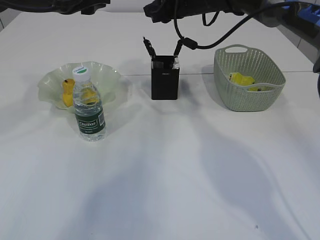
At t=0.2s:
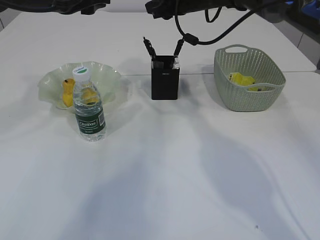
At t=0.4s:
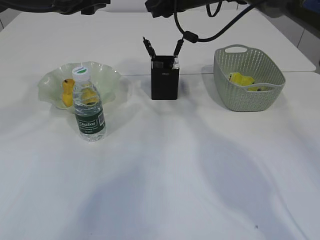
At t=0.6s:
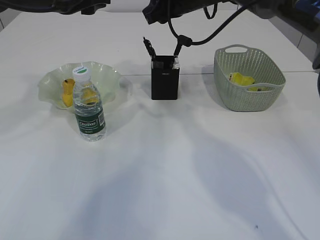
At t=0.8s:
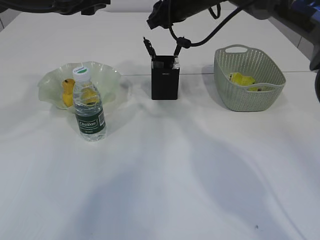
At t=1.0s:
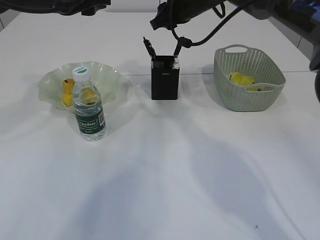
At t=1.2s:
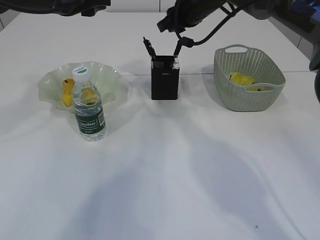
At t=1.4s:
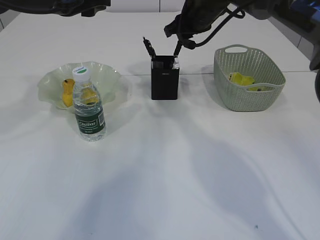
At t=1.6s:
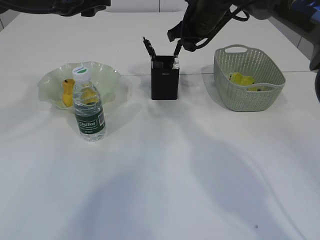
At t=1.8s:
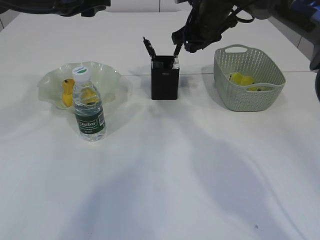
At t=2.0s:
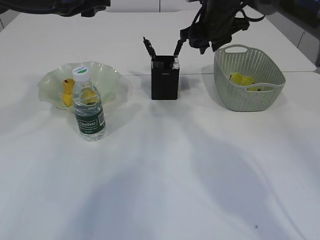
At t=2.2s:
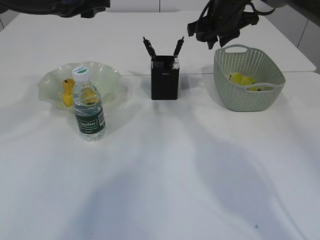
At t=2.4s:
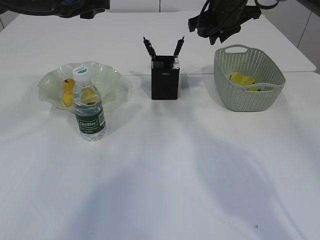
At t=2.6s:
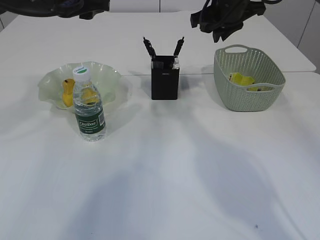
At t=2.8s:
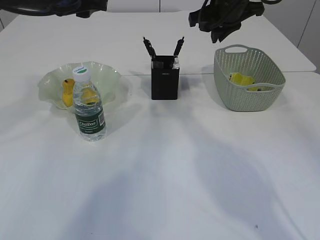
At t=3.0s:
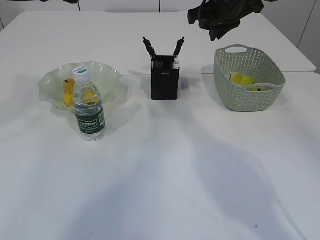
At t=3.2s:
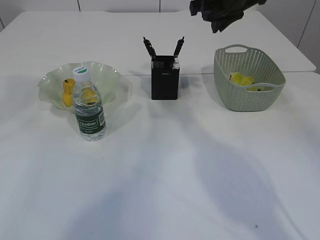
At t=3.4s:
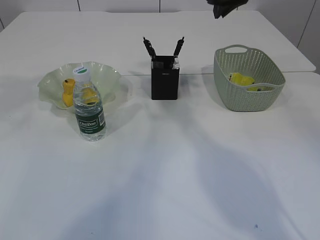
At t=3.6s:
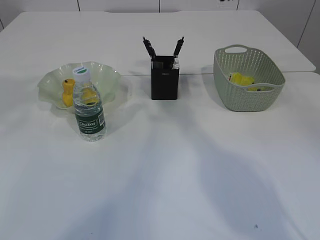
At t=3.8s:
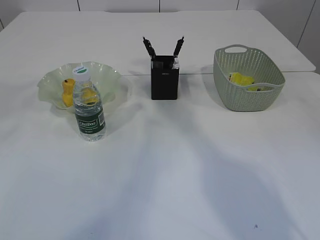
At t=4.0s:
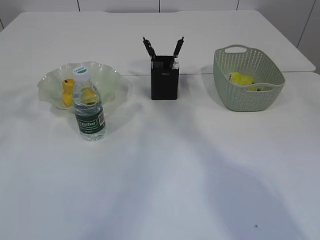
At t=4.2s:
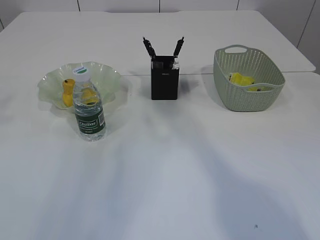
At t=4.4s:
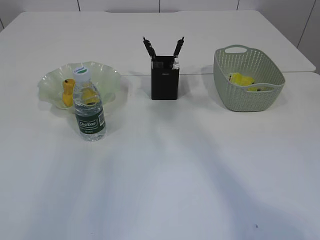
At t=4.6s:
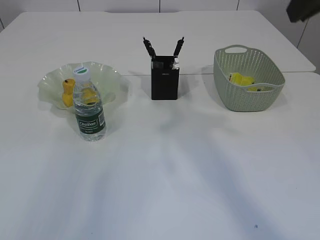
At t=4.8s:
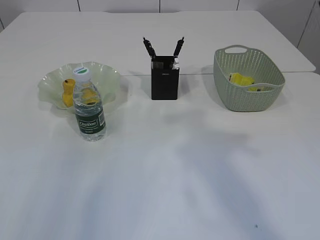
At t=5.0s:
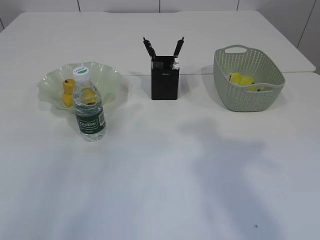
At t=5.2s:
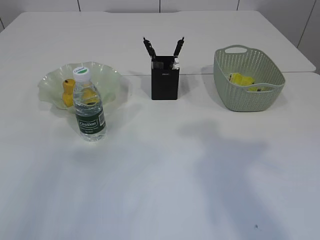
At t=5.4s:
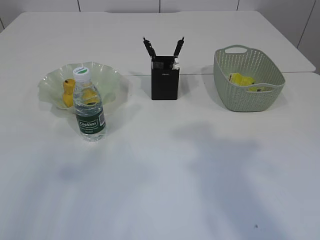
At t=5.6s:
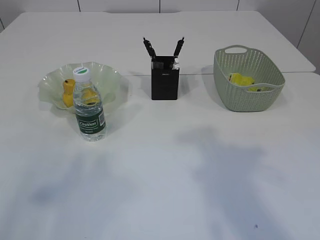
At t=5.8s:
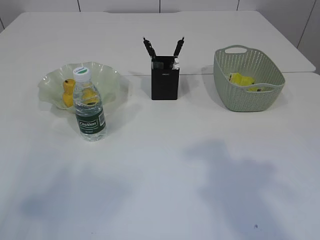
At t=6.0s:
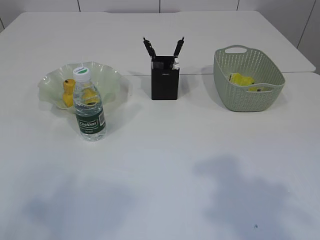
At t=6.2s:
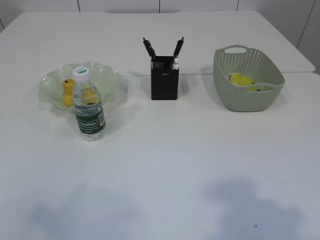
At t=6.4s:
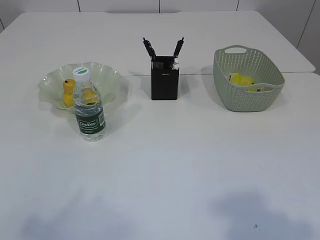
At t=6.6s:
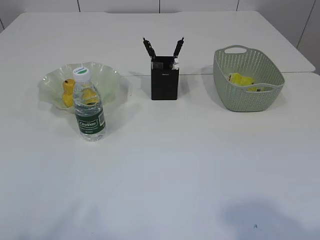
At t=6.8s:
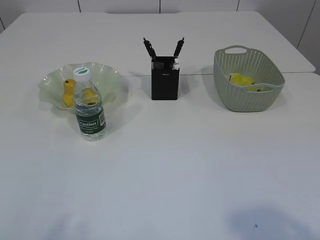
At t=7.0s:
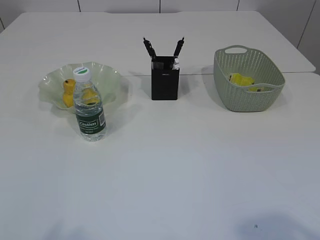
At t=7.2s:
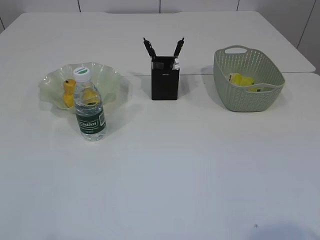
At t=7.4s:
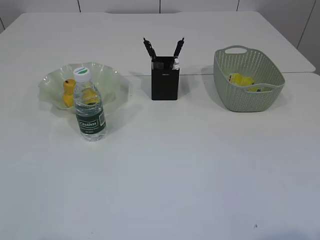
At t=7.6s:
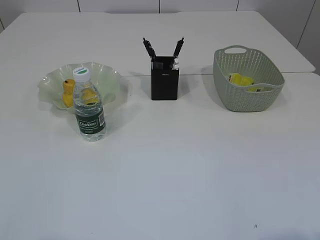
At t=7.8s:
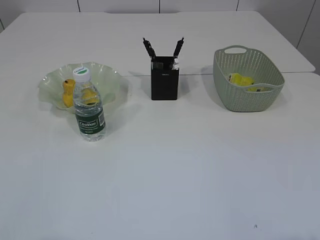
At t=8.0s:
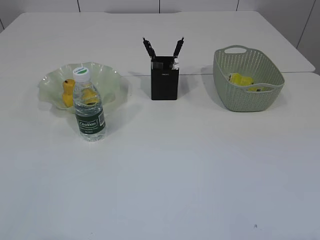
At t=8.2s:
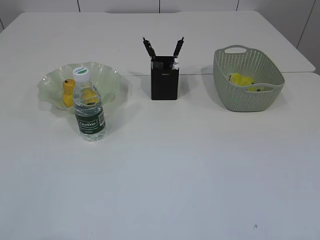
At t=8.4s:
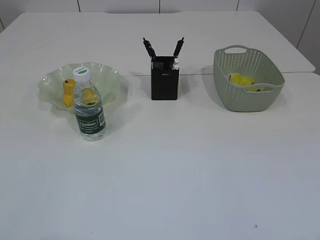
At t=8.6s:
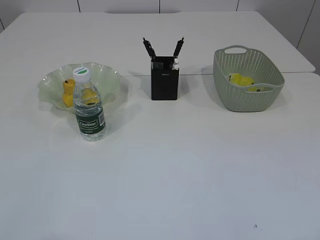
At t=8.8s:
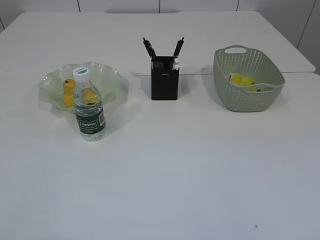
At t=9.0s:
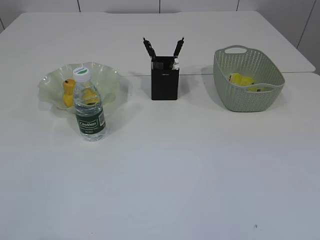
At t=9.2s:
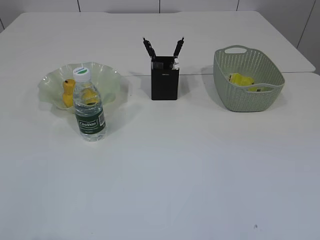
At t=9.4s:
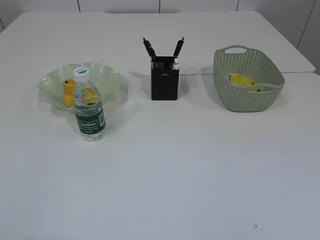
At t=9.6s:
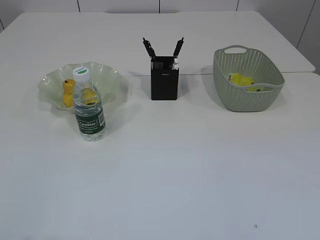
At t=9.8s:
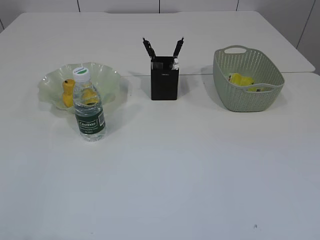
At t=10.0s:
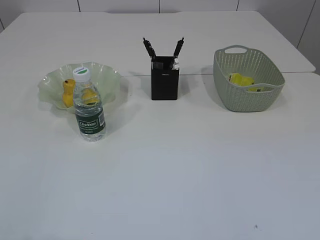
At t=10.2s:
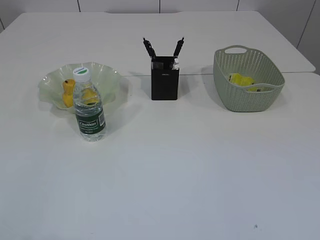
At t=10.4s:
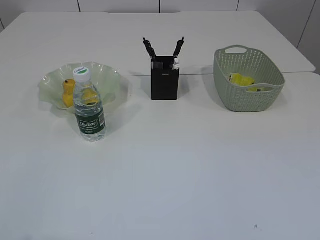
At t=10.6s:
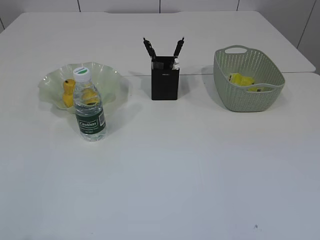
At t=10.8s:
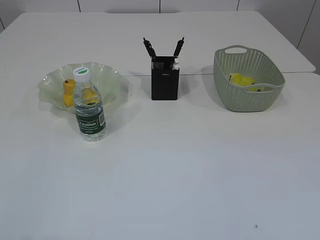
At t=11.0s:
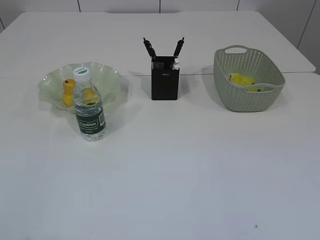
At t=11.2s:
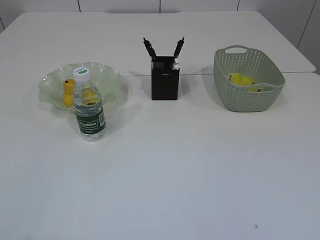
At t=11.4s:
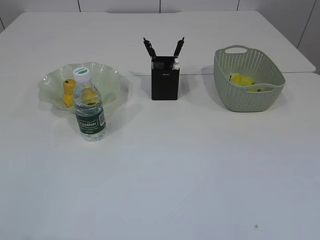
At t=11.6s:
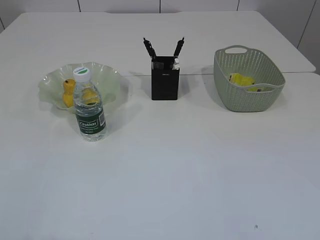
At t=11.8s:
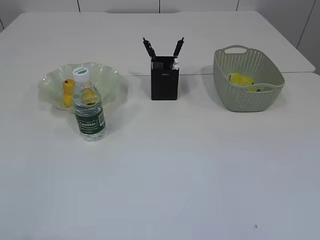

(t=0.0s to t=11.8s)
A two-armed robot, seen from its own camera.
t=1.4s - t=3.0s: The right gripper ends up some 5 cm from where it was.
t=3.0s - t=4.4s: The right gripper goes roughly 20 cm backward and upward. The left gripper heads backward and to the left, covering approximately 15 cm.
t=4.4s - t=6.0s: Both grippers move backward, some 20 cm. The right gripper opens.
t=10.4s - t=11.8s: Both grippers stay put.

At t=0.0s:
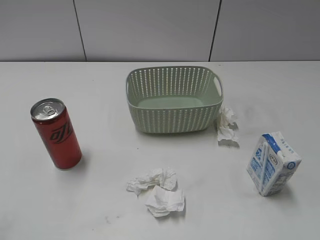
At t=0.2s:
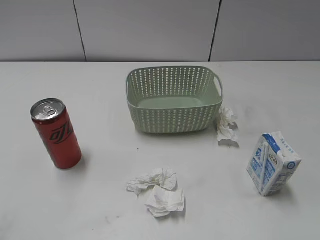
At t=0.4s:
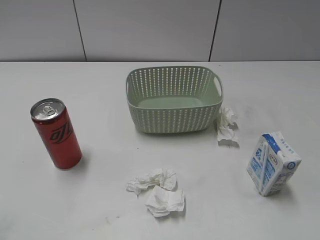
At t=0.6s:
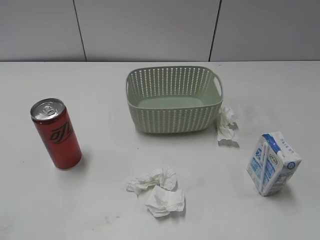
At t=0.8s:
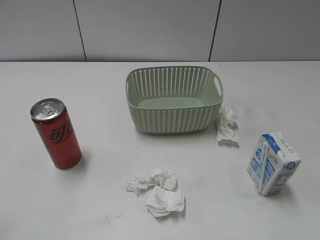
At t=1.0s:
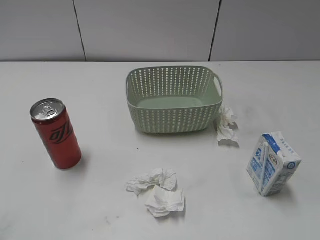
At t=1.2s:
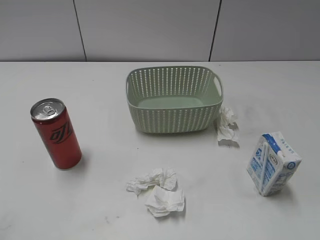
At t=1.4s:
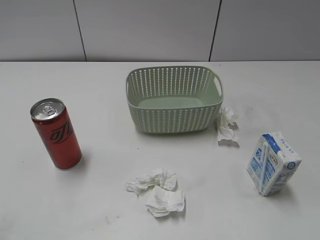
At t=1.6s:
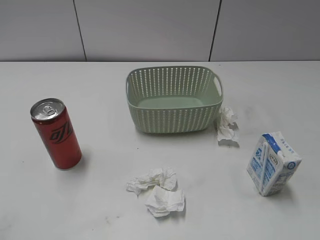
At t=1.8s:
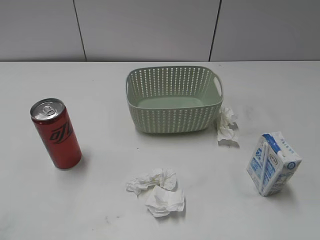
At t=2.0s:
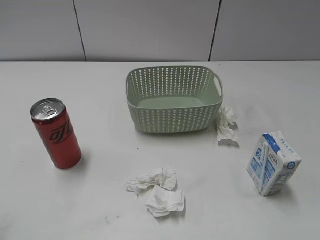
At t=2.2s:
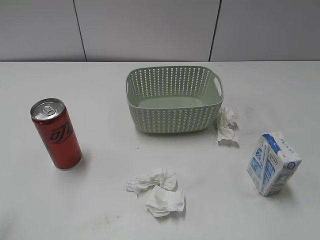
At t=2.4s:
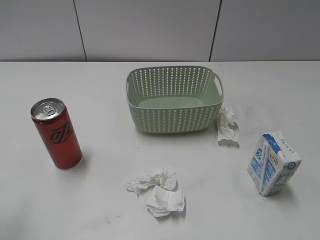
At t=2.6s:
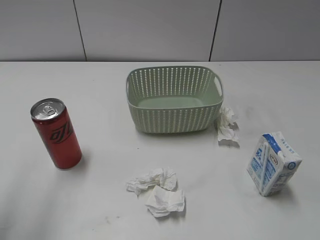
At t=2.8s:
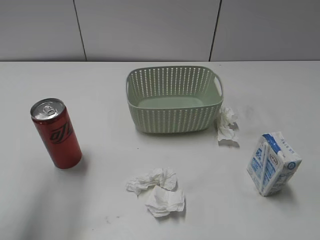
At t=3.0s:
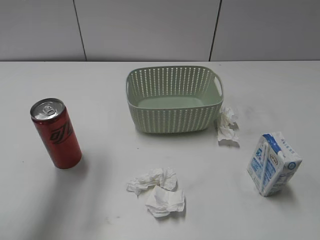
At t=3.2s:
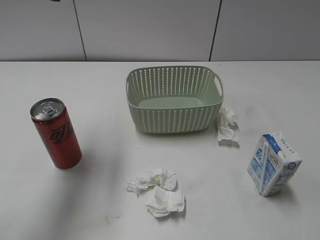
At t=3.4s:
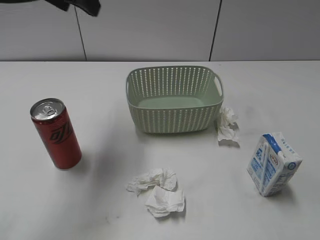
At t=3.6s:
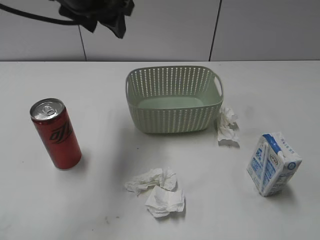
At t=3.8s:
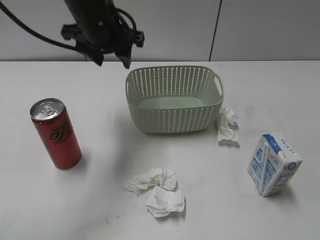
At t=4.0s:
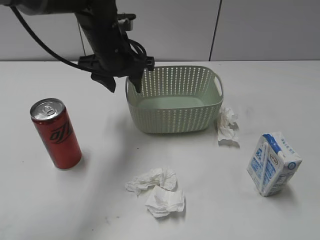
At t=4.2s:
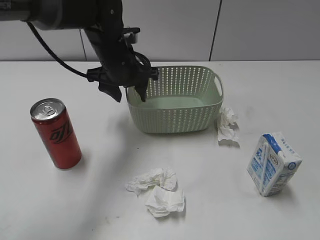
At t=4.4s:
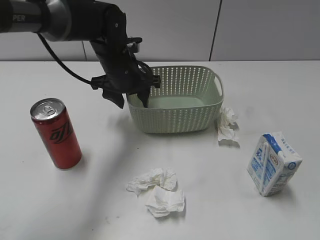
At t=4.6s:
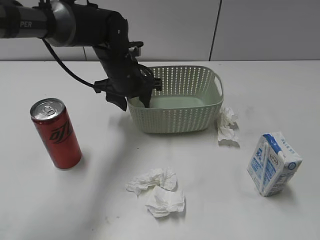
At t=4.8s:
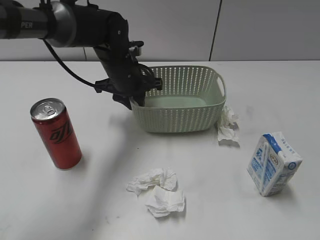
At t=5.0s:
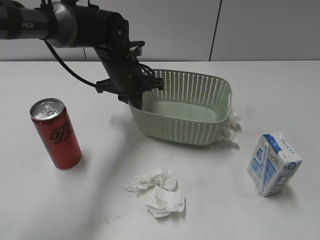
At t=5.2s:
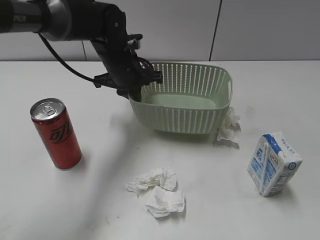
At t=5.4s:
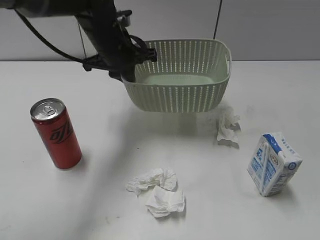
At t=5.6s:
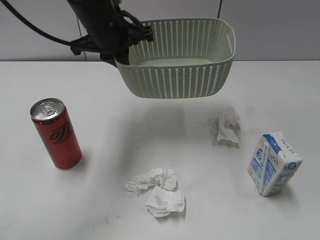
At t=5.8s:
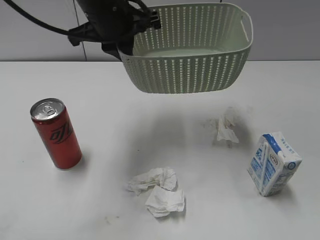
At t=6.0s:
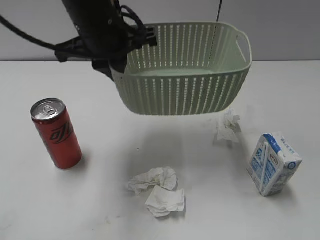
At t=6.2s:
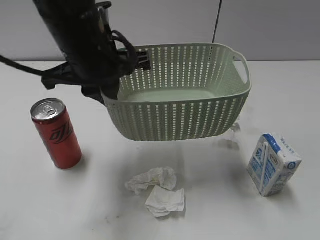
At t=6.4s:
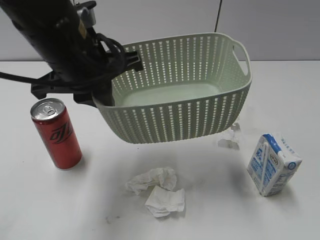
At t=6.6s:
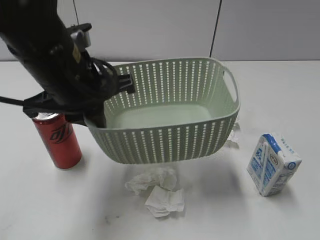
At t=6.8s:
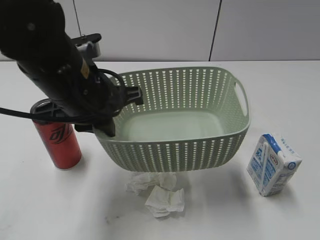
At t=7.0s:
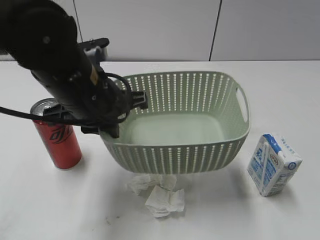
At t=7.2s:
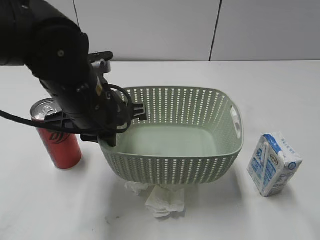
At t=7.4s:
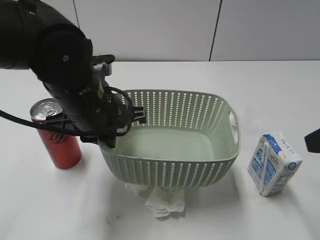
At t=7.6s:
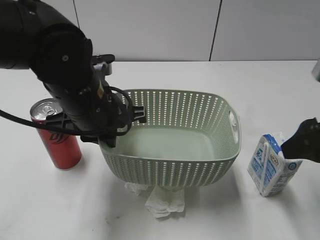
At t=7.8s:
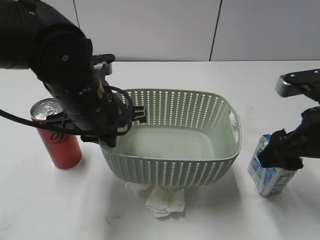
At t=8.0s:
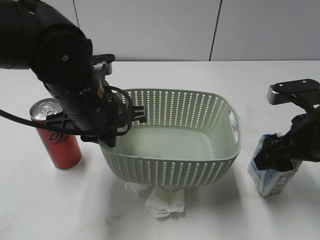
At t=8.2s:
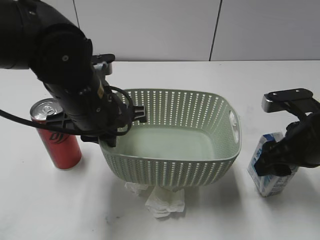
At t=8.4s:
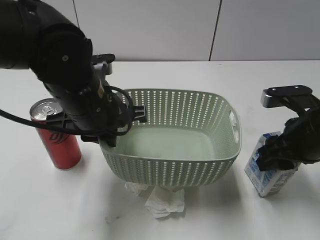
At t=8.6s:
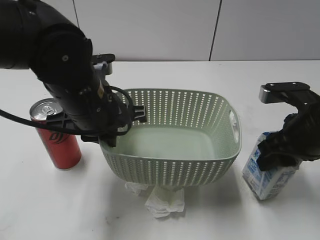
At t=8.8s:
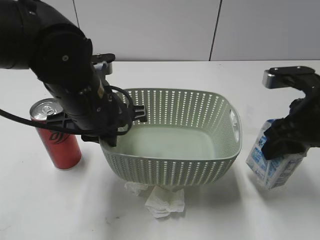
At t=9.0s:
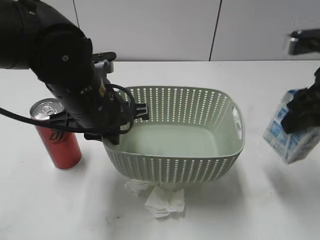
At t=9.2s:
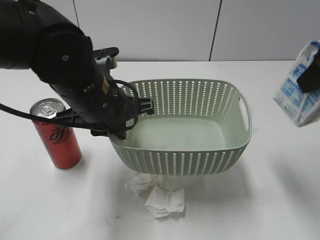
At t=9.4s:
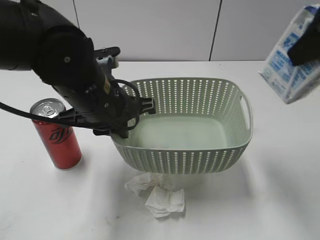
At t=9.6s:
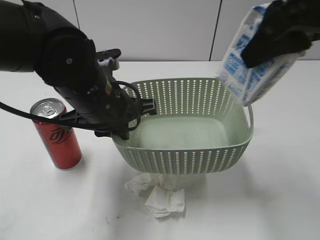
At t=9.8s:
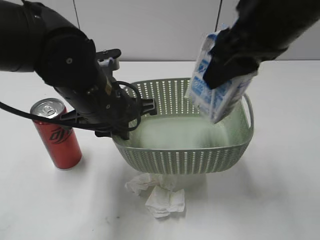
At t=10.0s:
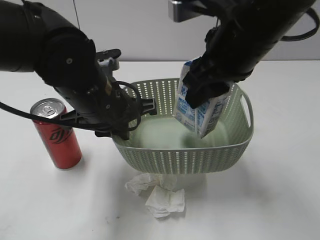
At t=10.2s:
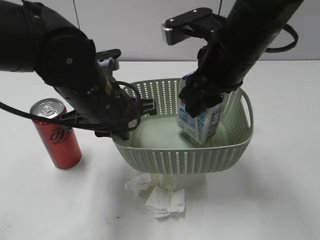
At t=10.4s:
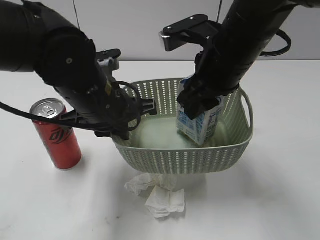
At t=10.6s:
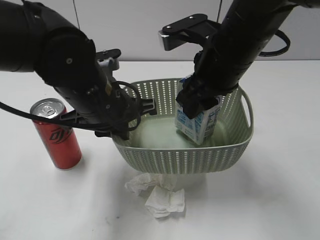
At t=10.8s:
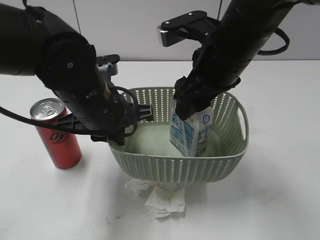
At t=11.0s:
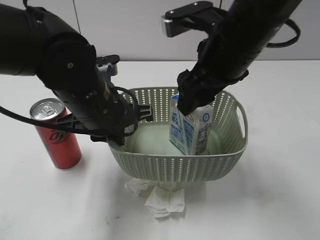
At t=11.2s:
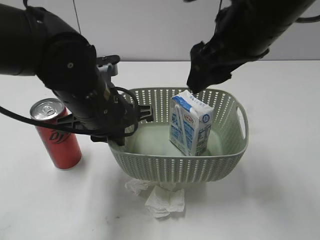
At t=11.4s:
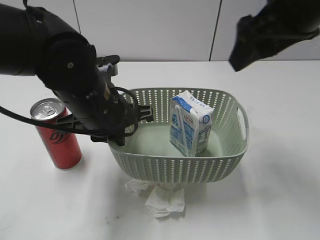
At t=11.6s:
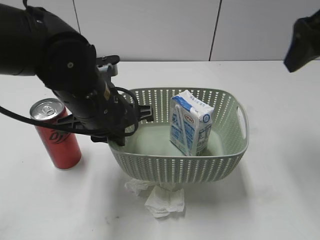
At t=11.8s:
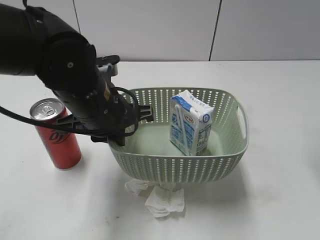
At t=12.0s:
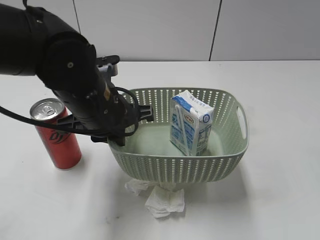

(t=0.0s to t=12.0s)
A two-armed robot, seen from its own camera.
Step, t=3.2s - t=5.0s: Grasp the basket with left gripper.
Step, t=5.2s - t=7.2s: Lift the basket with left gripper.
Step, t=7.4s - t=8.4s: Grasp the milk with right gripper.
Step, t=8.6s - t=11.2s: Place the milk in the basket with right gripper.
t=1.6s - t=3.0s: The left gripper travels forward and to the right by about 30 cm.
t=3.0s - t=4.4s: The left gripper moves downward, to the right and forward, about 30 cm.
t=4.4s - t=6.0s: The left gripper goes roughly 20 cm backward and upward, and closes.
t=6.0s - t=7.6s: The left gripper travels downward by roughly 5 cm. The right gripper shifts about 25 cm forward.
t=7.6s - t=9.0s: The right gripper travels upward by some 10 cm, and closes.
t=9.0s - t=10.4s: The right gripper goes some 15 cm to the left and downward.
t=10.4s - t=12.0s: The right gripper is displaced to the right and backward by about 25 cm, and opens up.
